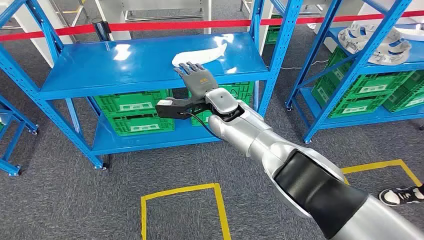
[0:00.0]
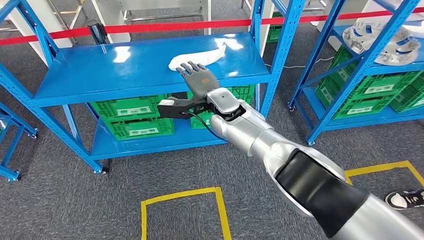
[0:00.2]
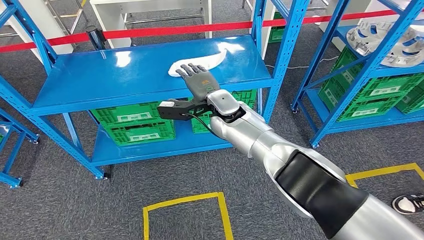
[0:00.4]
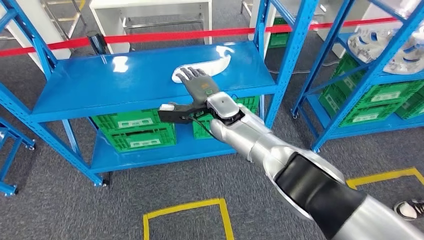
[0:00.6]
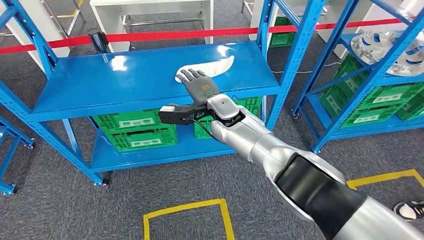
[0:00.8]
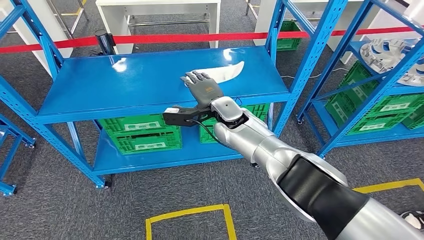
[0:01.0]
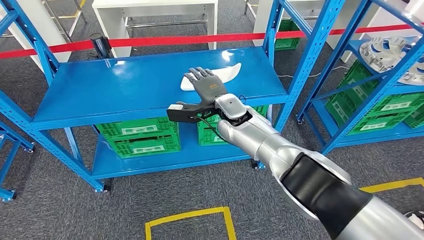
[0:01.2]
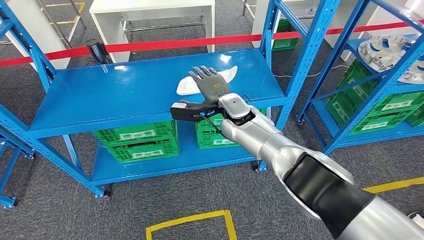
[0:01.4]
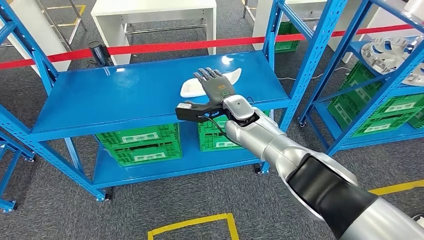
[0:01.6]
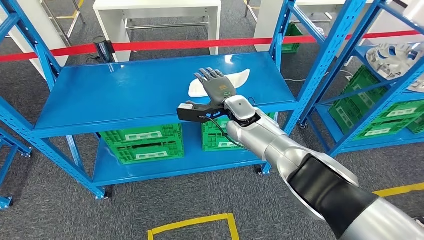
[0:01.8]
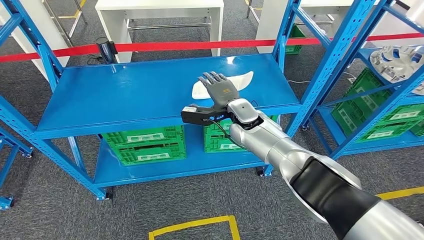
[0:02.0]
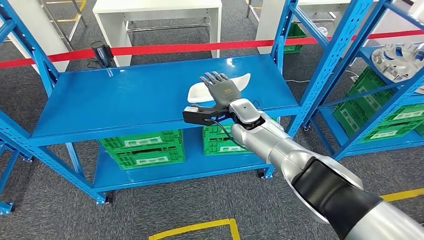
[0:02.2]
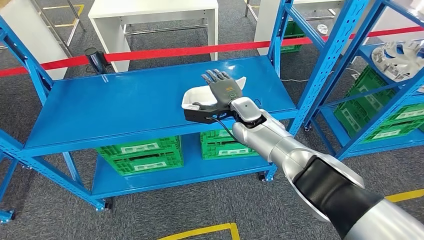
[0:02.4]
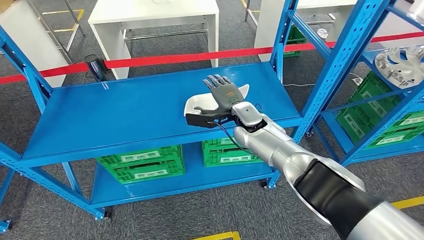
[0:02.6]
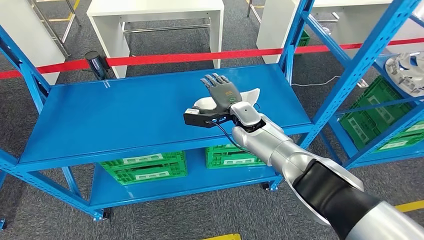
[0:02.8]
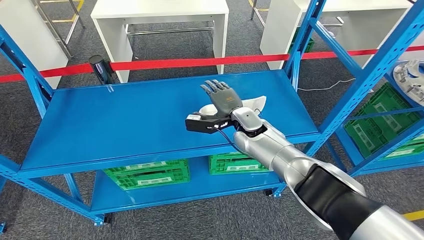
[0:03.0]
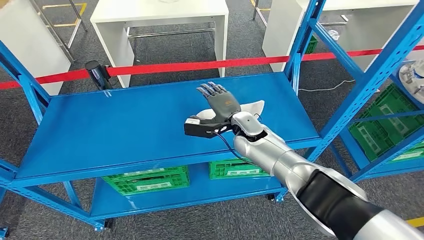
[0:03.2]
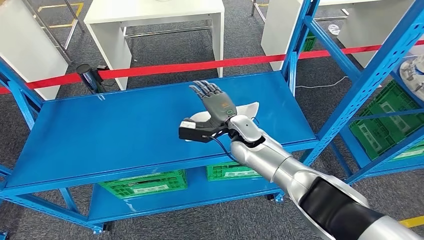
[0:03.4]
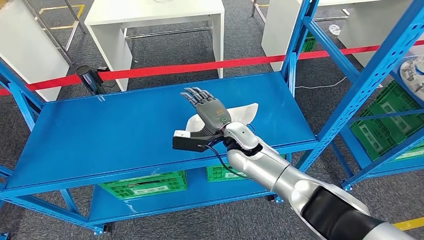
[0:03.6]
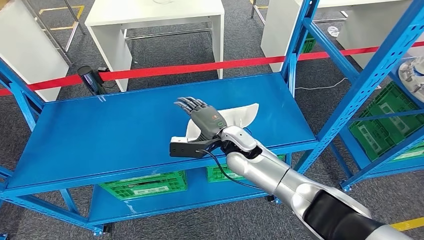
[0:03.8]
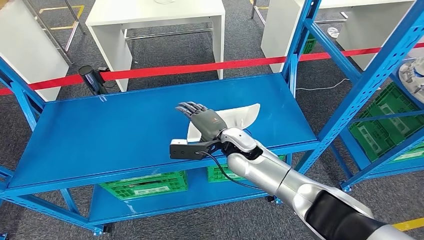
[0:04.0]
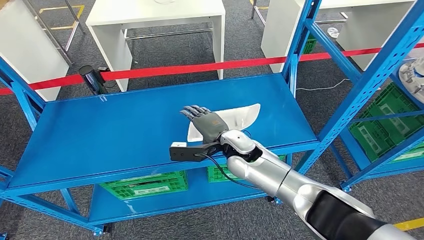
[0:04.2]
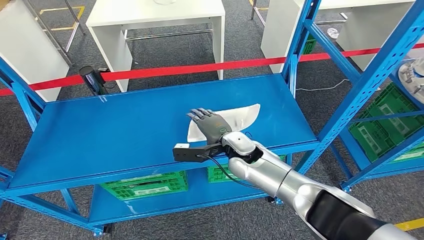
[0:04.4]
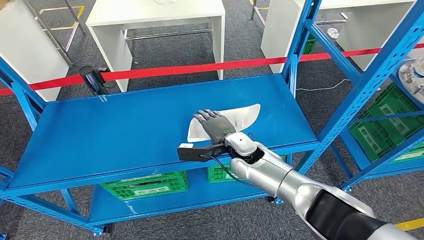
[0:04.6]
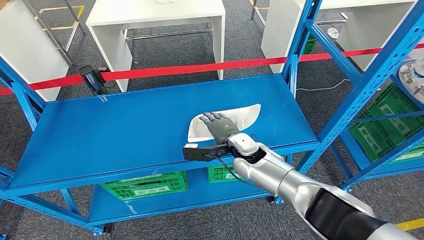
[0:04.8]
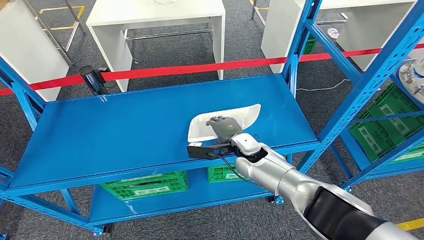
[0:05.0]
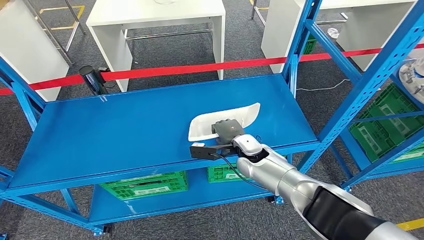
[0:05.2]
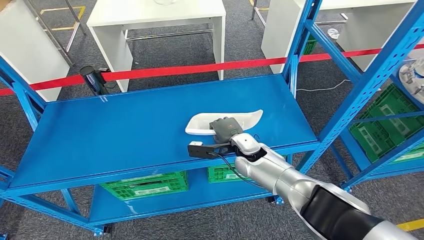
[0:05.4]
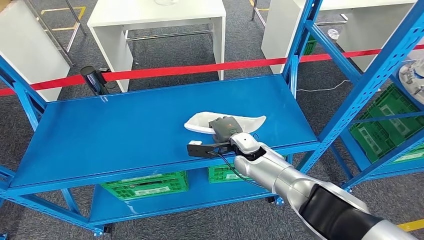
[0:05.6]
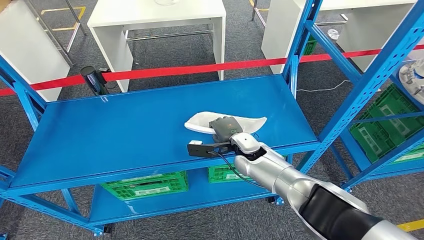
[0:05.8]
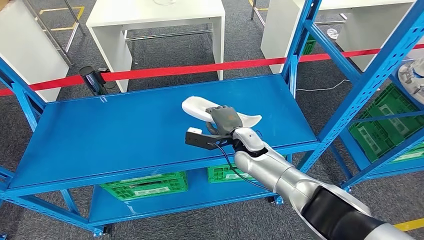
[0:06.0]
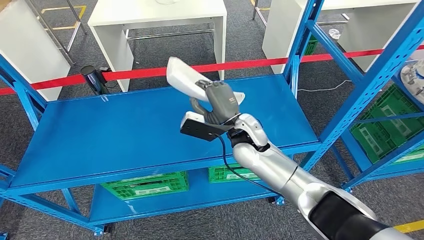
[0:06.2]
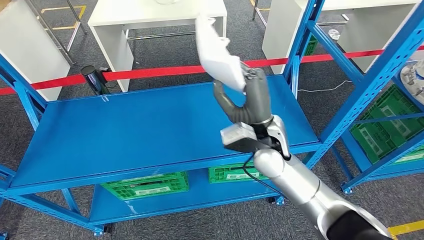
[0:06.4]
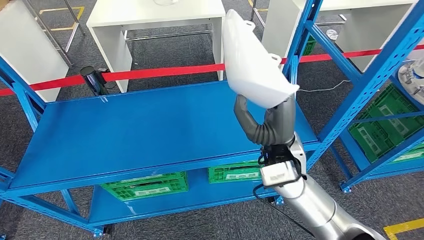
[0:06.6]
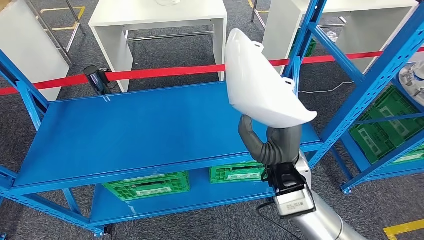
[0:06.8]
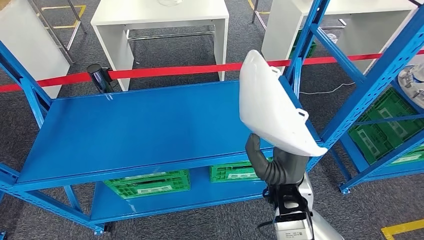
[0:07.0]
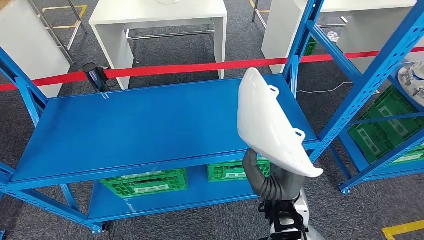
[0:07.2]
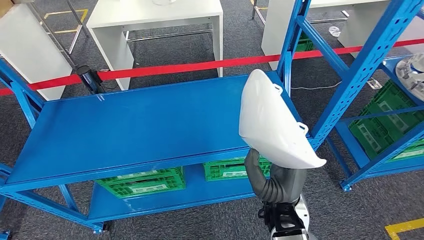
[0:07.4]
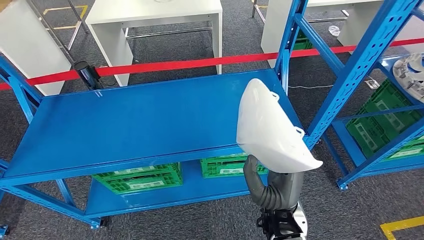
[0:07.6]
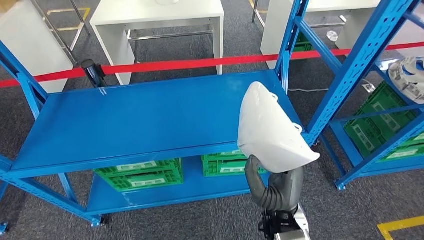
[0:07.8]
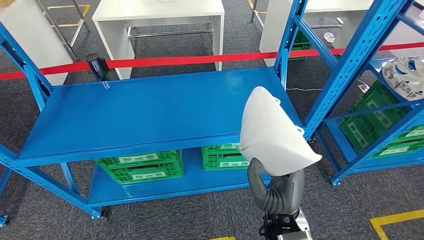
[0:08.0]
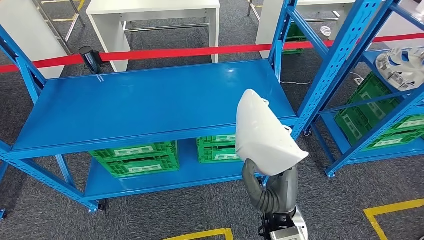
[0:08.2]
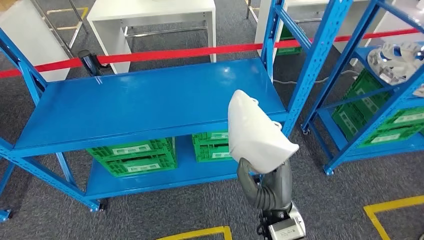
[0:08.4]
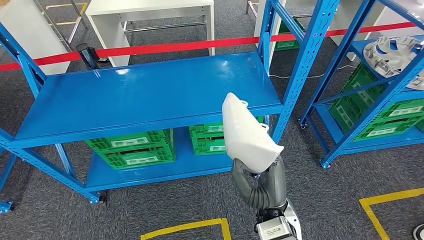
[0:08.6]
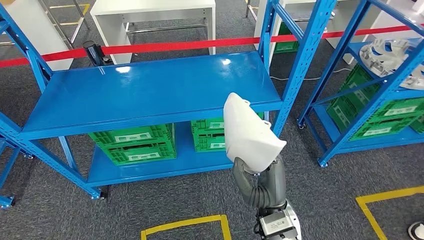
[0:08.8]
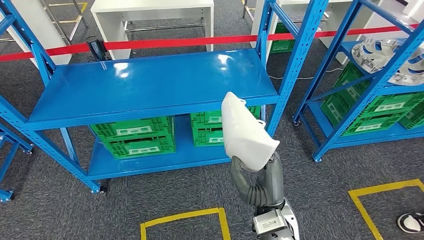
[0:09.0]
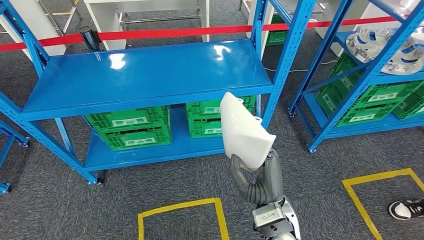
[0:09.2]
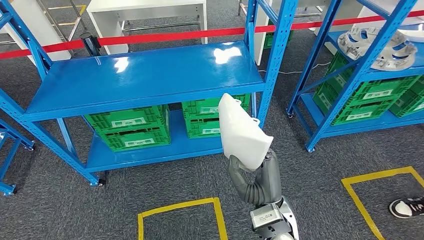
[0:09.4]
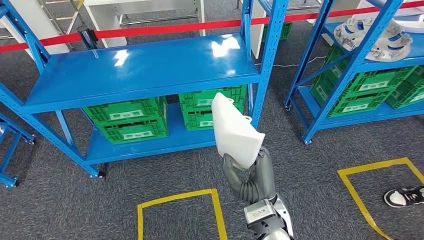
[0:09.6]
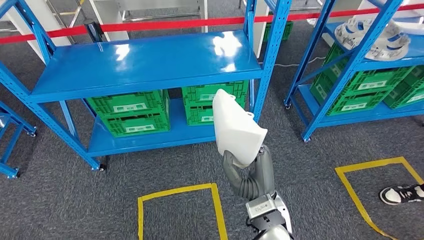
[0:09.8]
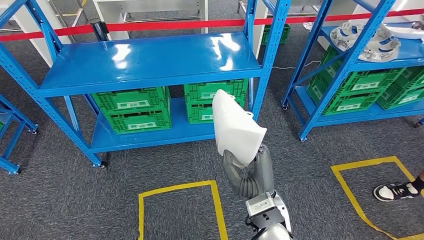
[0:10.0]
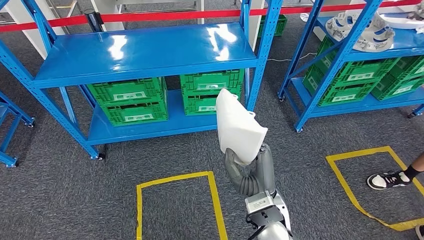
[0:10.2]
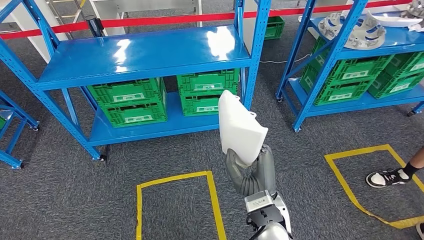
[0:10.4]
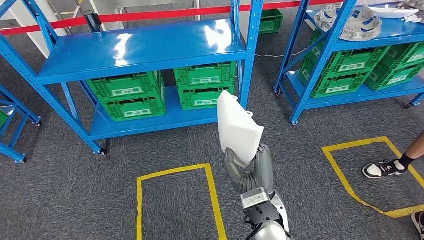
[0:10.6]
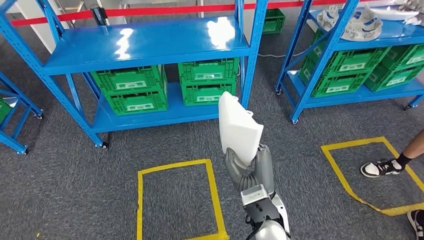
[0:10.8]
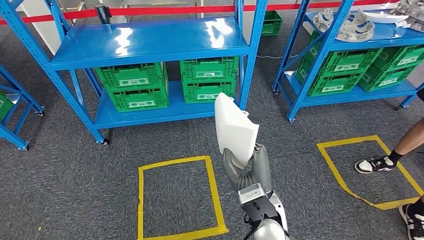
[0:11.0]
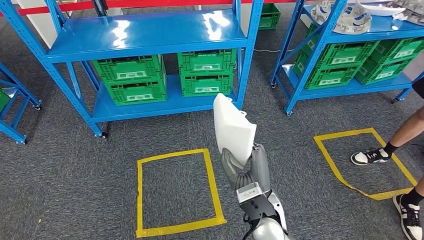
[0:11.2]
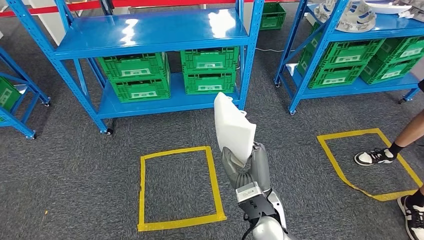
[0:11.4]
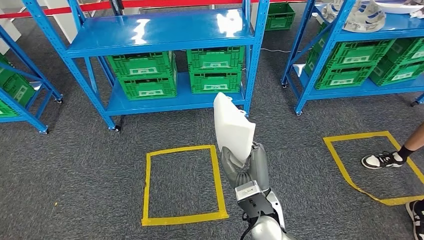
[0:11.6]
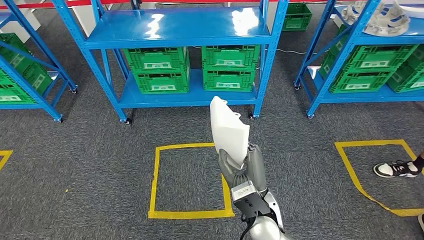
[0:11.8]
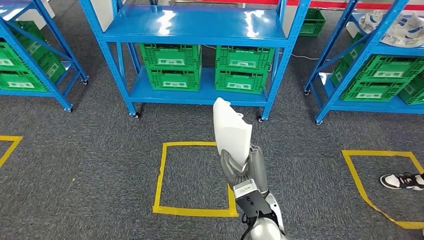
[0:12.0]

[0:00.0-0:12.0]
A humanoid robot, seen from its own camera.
Step, 0:00.0 to 0:07.0: Pick up the small component from the shelf.
0:04.4 to 0:06.0: There are only small adjustments of the hands.

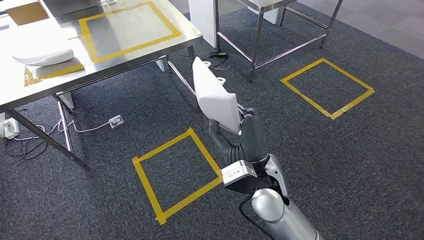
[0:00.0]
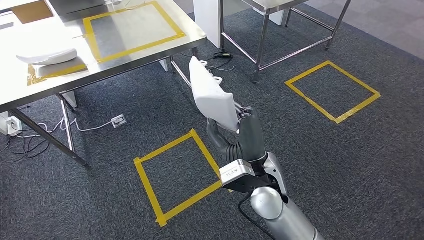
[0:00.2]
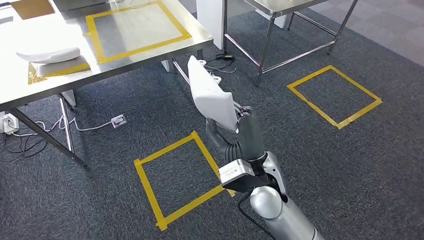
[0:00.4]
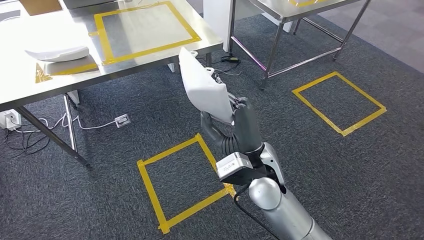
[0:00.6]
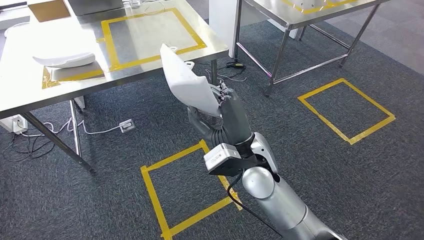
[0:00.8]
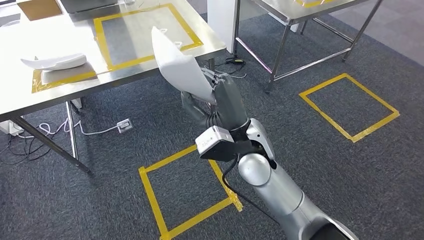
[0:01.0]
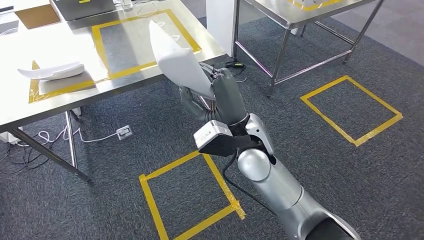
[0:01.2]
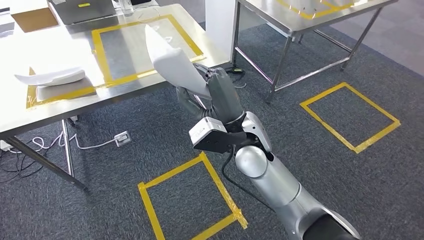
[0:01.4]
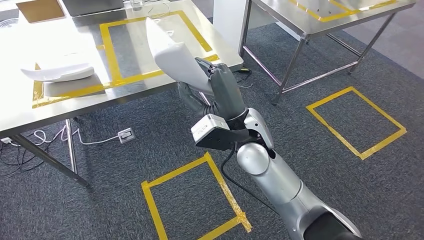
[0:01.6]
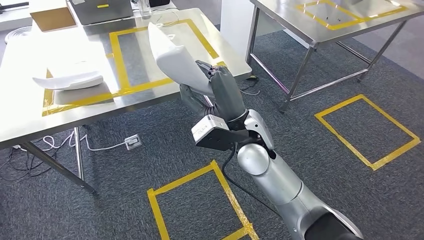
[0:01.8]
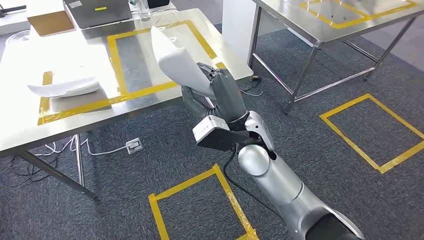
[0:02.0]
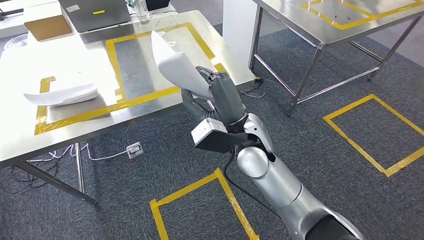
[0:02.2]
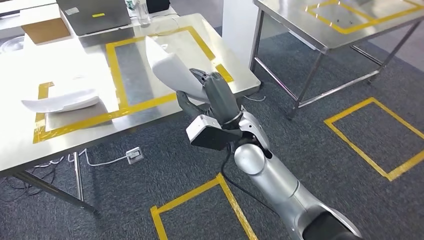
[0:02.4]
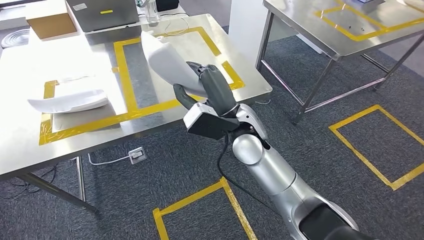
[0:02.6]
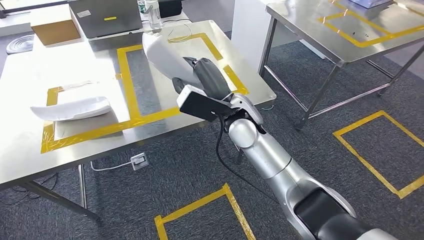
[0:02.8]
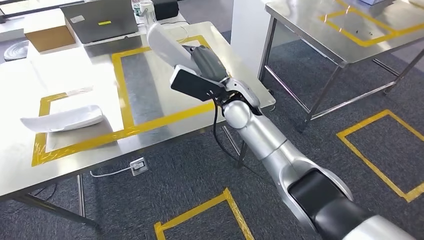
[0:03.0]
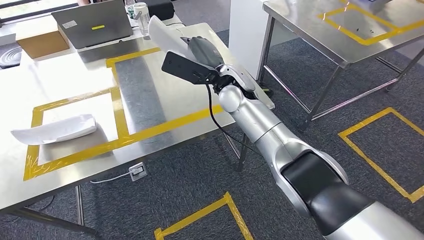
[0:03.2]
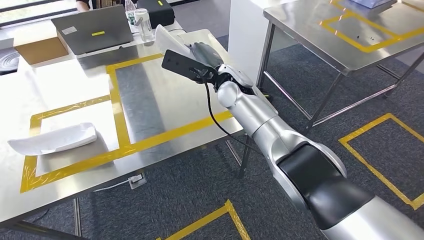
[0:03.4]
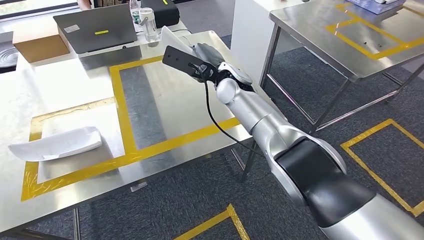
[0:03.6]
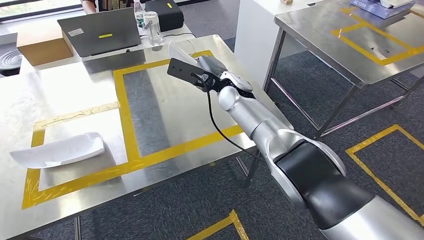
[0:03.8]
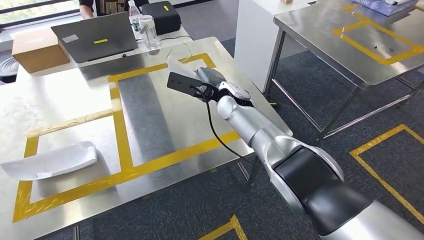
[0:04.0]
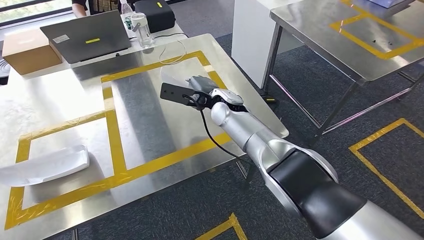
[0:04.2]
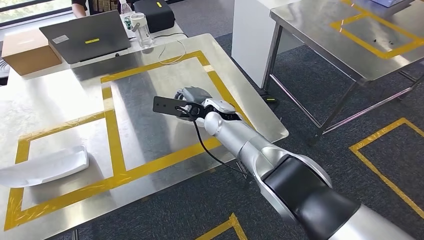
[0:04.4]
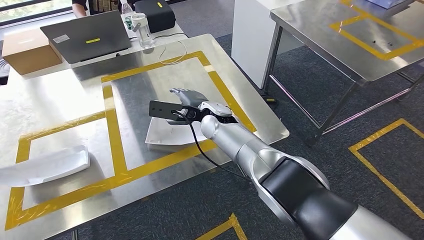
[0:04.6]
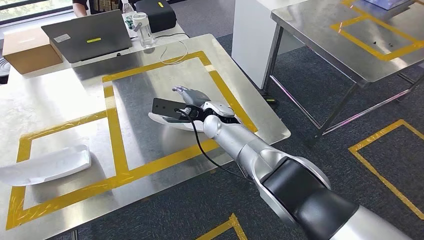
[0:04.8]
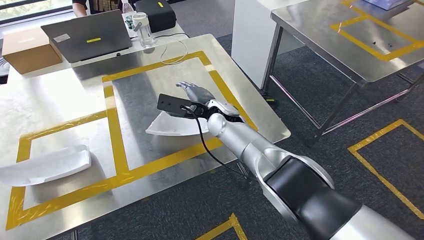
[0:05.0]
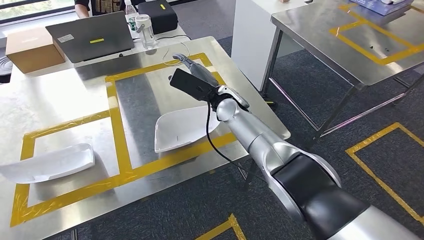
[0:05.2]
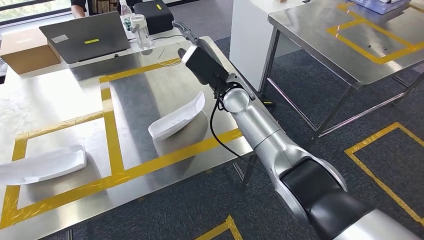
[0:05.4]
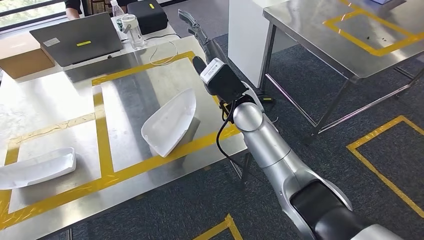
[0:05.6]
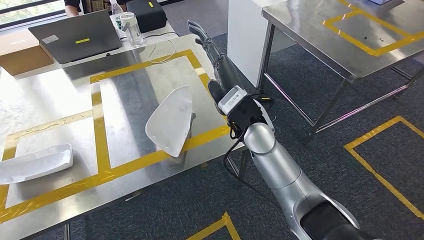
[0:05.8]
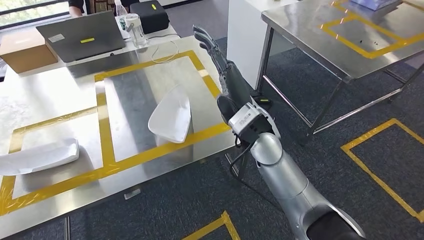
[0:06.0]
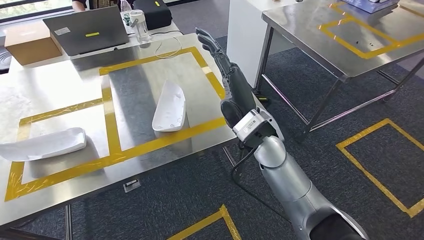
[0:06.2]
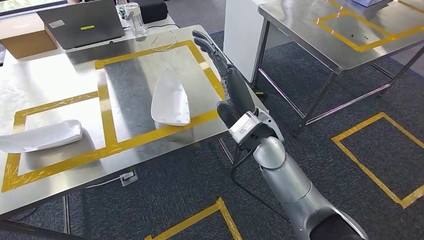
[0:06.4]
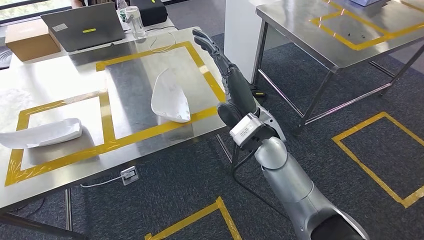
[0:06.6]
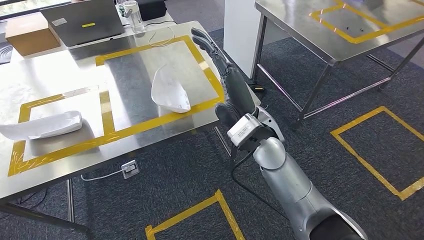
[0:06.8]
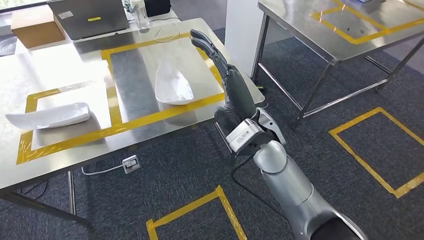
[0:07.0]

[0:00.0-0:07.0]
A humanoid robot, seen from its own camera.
Step, 0:00.0 to 0:03.8: Move the small component to the workbench.
Step, 0:04.2 to 0:06.6: Insert the small component into the corresponding slot on the workbench.
